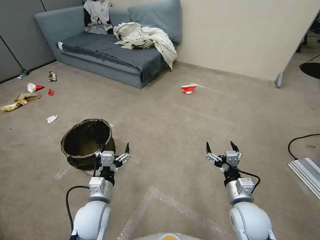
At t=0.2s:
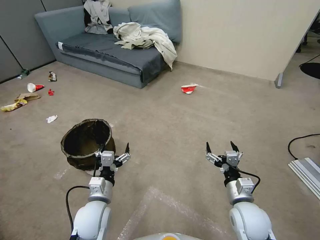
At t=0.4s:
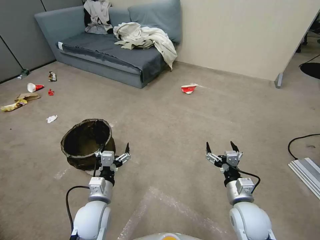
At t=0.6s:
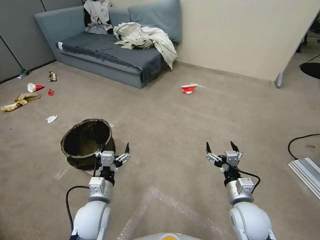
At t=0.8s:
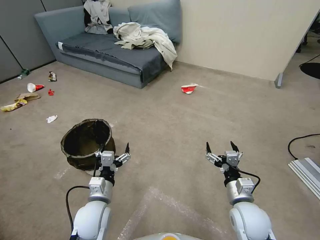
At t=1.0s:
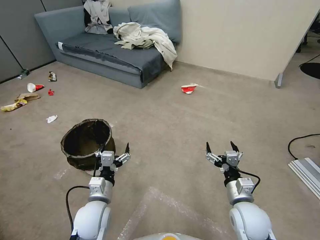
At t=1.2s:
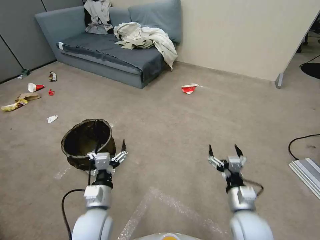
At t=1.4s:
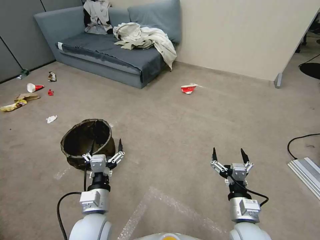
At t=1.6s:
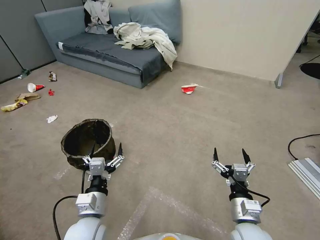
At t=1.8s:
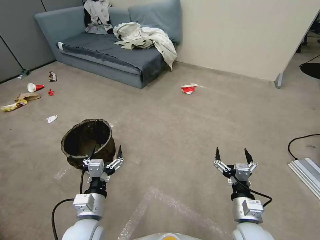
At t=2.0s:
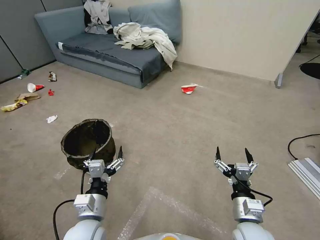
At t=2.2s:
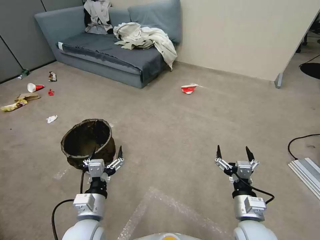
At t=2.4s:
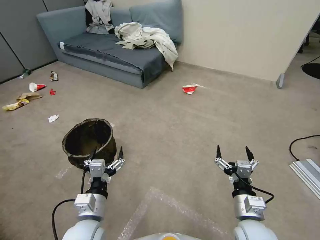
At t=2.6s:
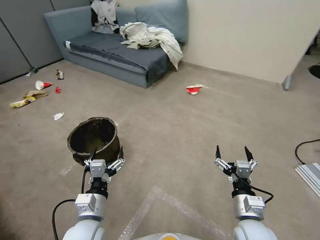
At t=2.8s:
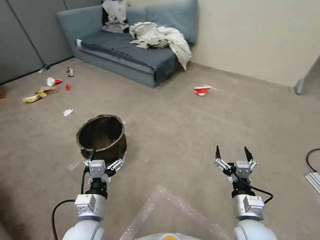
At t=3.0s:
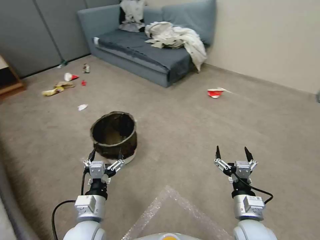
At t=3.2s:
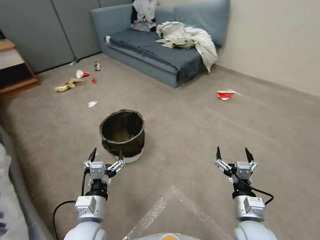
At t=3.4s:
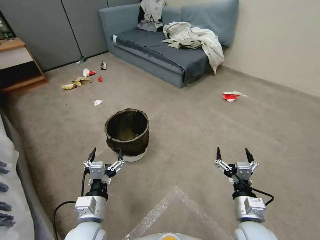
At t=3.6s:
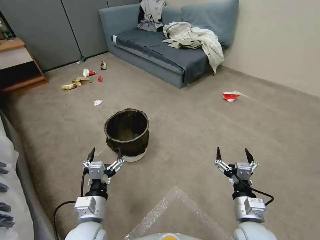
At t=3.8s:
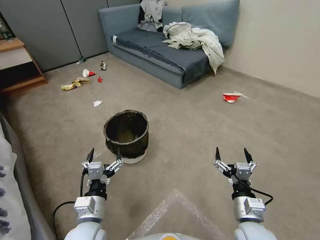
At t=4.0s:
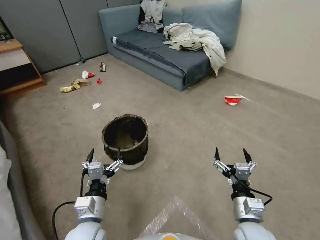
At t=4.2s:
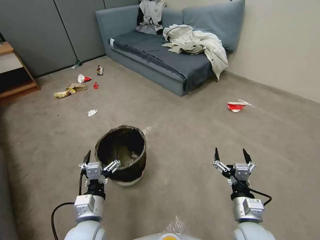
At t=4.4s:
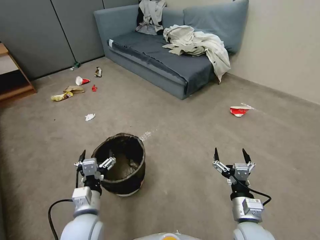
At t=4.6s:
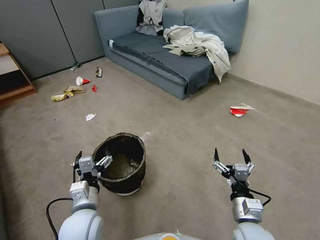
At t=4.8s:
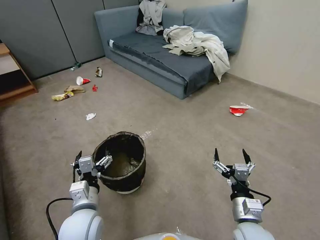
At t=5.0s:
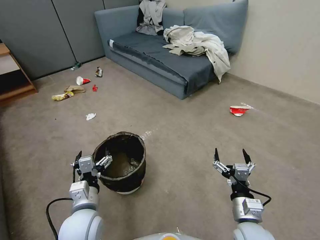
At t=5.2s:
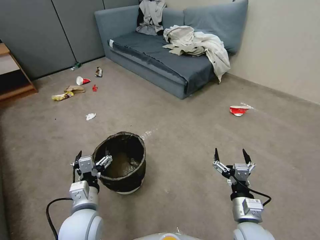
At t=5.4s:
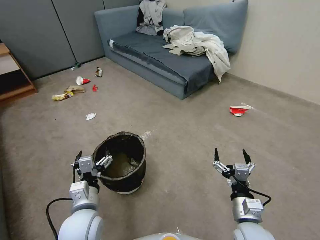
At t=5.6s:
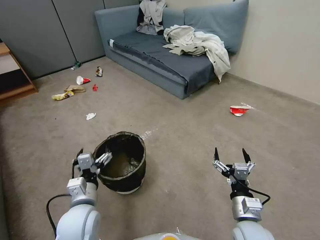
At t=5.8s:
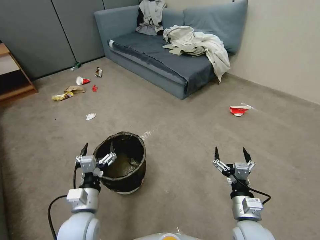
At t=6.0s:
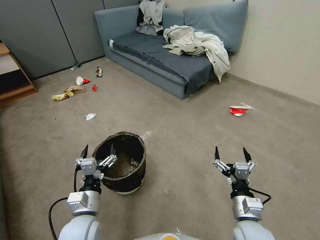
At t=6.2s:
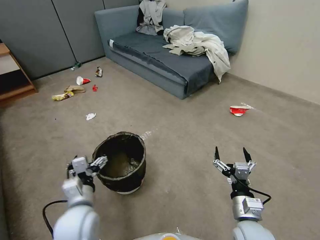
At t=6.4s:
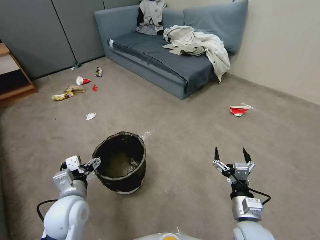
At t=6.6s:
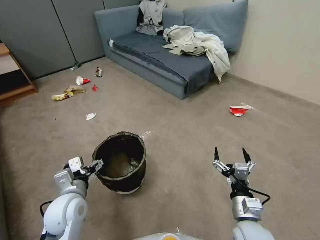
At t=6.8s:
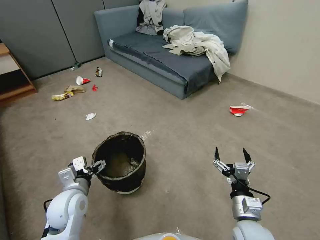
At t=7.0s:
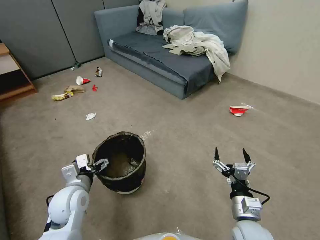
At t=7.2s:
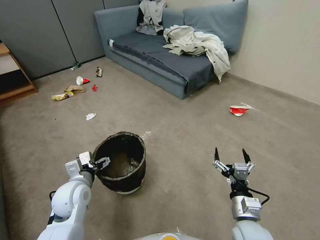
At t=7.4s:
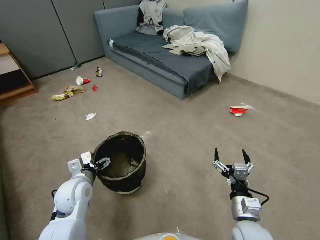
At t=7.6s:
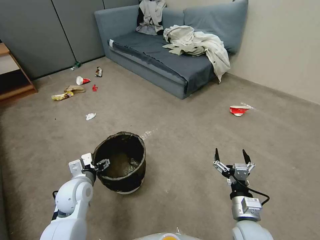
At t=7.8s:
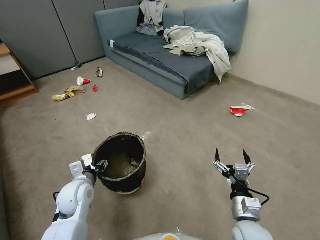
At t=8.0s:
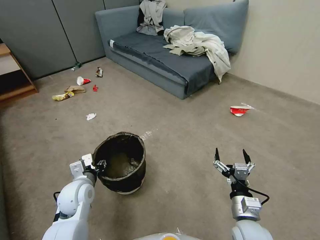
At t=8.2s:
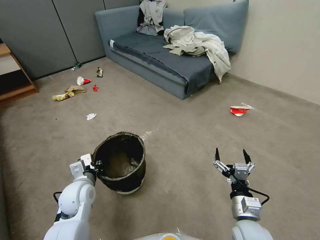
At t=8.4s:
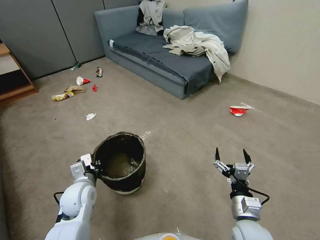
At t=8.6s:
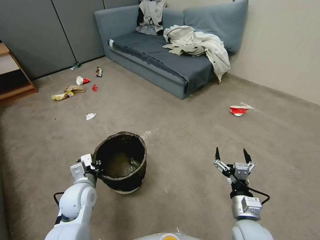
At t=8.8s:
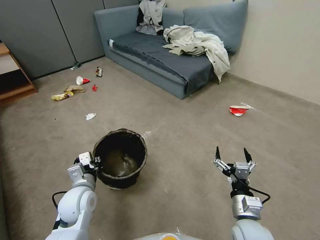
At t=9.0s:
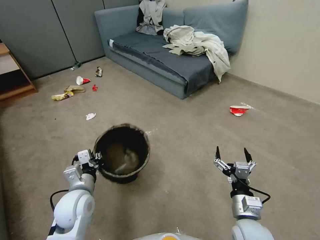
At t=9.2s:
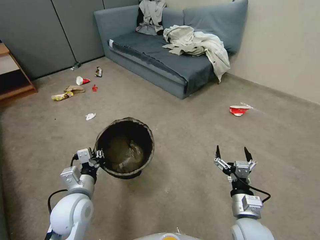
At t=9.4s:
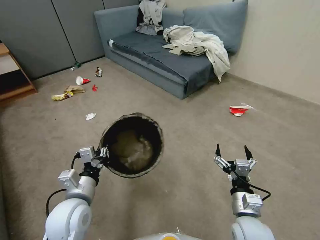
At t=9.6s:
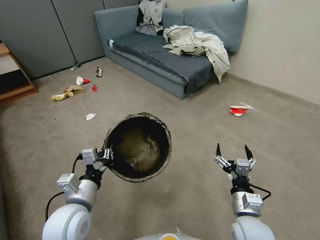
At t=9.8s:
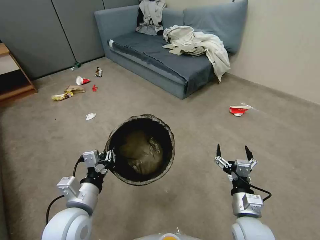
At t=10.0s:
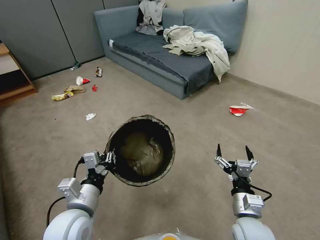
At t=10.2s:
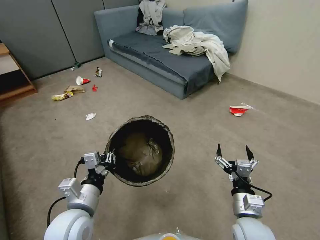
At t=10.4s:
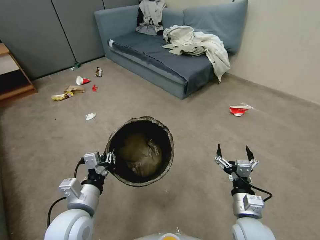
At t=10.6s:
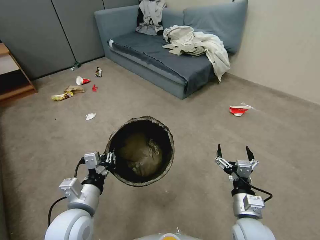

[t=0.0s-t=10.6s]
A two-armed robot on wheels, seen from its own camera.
Task of the whole recording: Pick up the trash can from the floor.
t=4.6s to t=6.0s: The grippers stay close to where they were, moving slightly.
t=6.0s to t=7.6s: The left gripper travels forward and to the left by some 10 cm.
t=7.6s to t=9.0s: The left gripper closes.
t=9.0s to t=10.6s: The left gripper moves backward and upward, roughly 10 cm.
